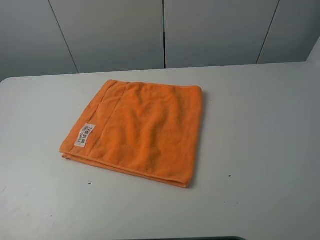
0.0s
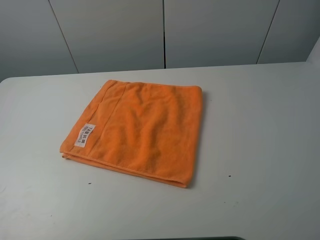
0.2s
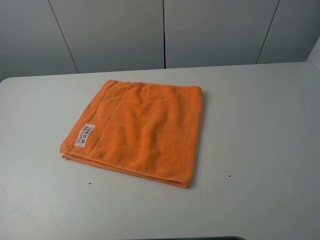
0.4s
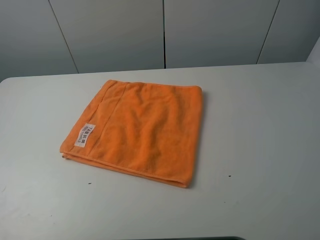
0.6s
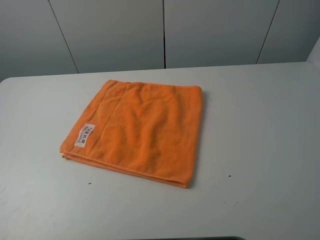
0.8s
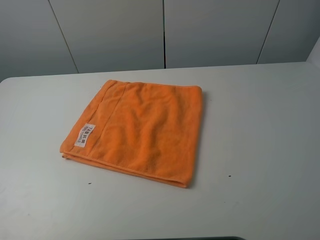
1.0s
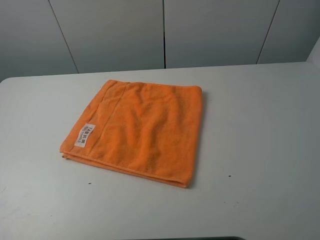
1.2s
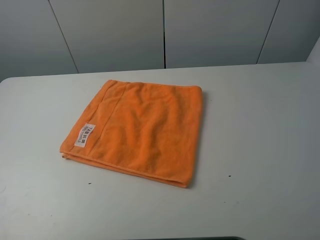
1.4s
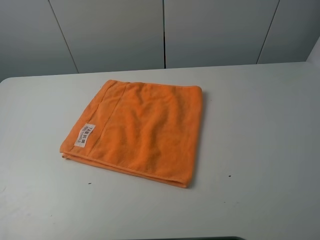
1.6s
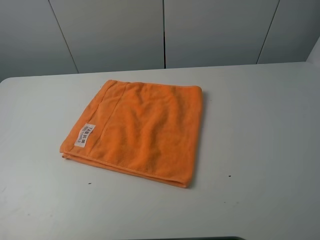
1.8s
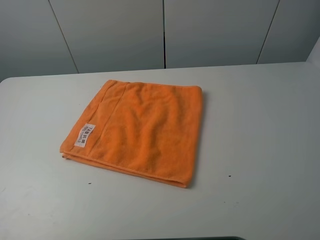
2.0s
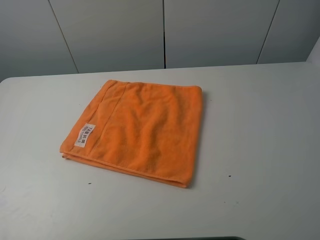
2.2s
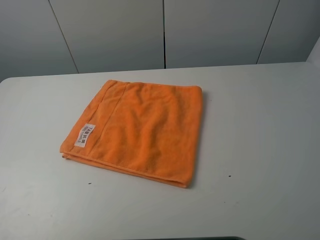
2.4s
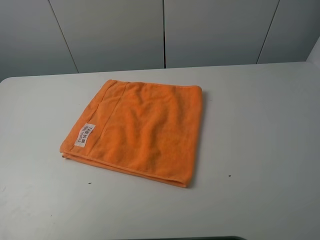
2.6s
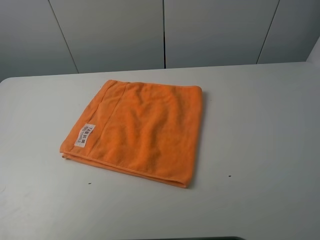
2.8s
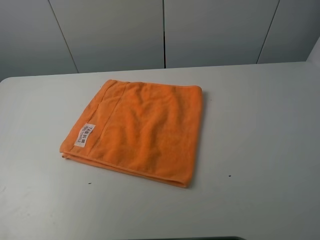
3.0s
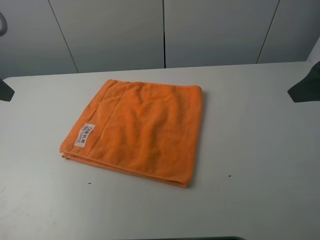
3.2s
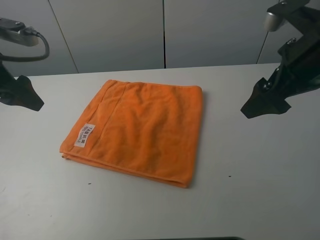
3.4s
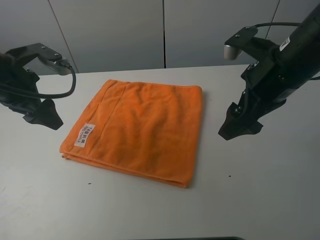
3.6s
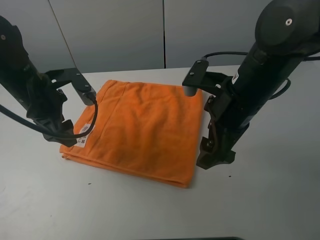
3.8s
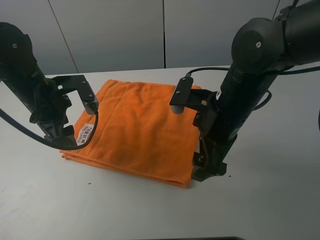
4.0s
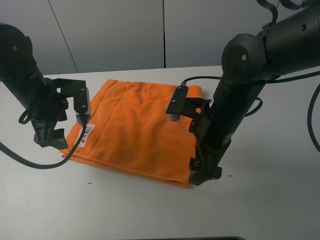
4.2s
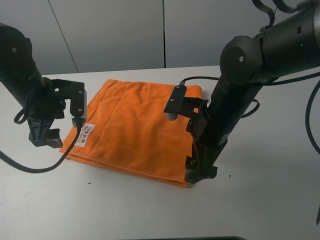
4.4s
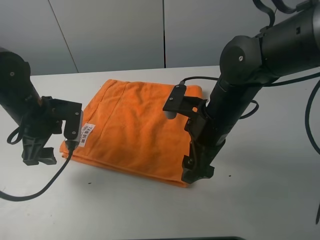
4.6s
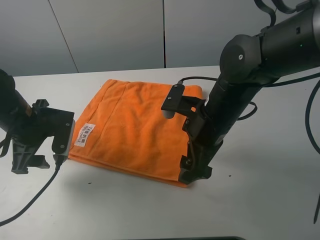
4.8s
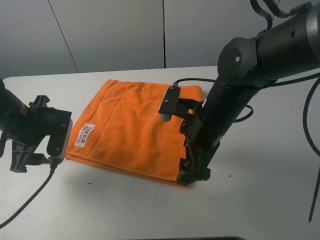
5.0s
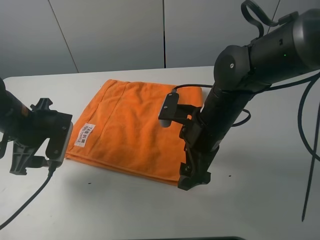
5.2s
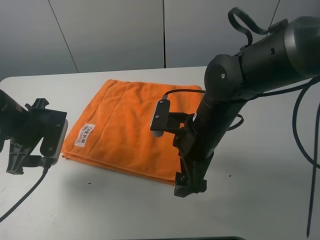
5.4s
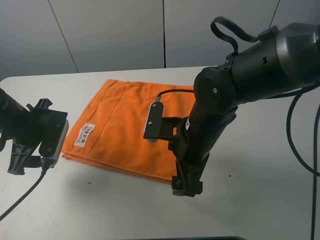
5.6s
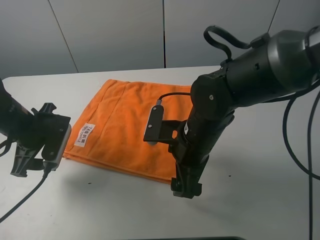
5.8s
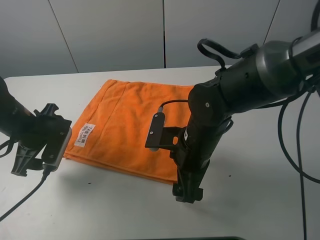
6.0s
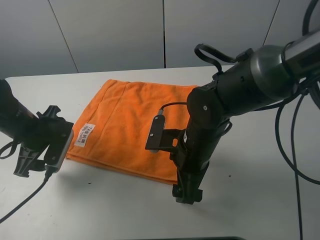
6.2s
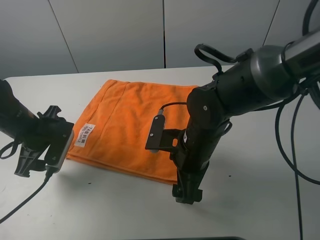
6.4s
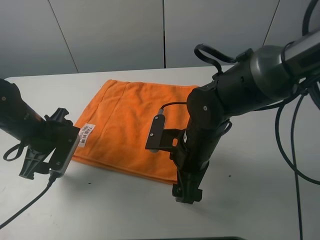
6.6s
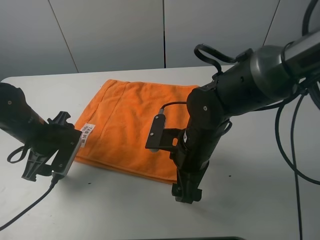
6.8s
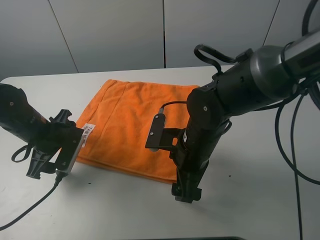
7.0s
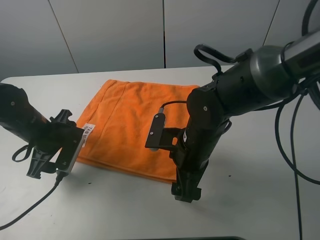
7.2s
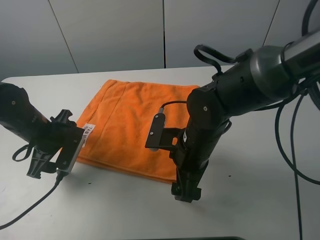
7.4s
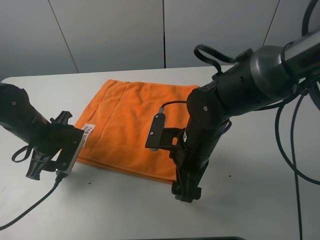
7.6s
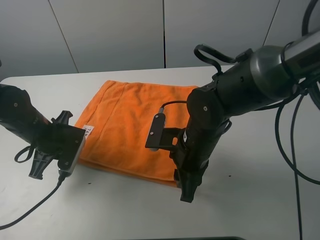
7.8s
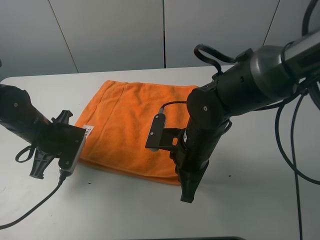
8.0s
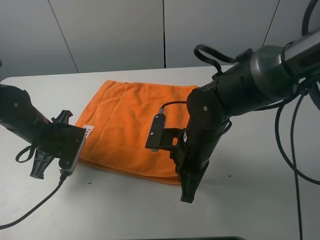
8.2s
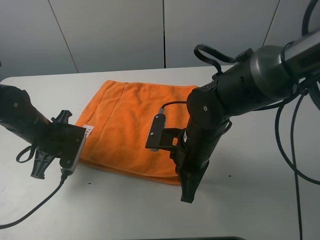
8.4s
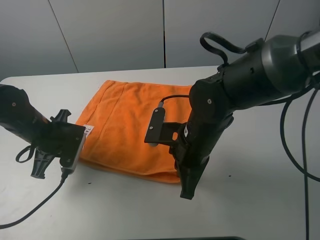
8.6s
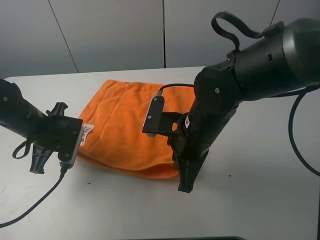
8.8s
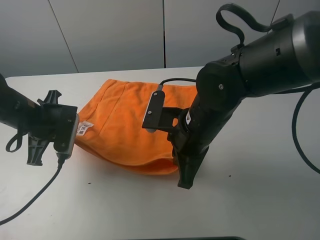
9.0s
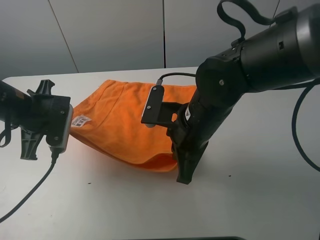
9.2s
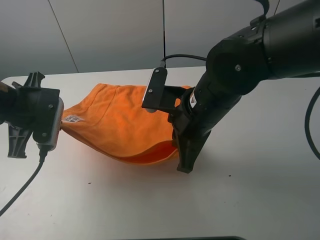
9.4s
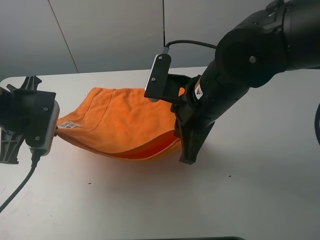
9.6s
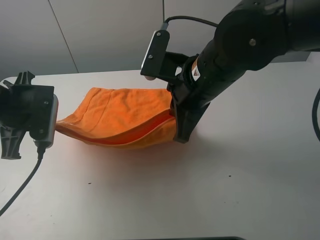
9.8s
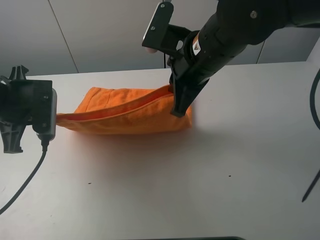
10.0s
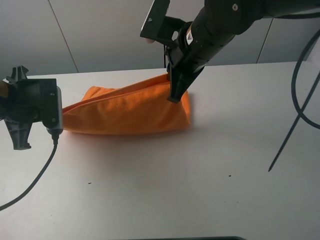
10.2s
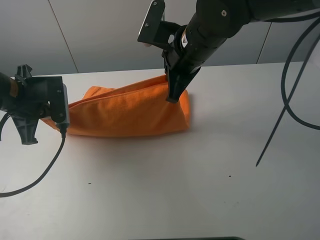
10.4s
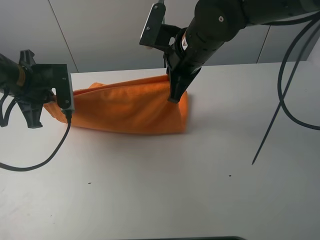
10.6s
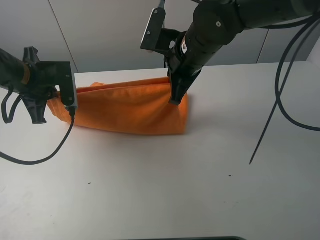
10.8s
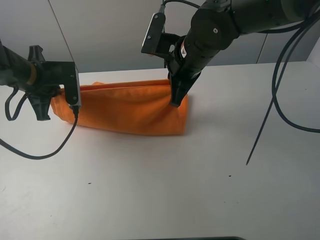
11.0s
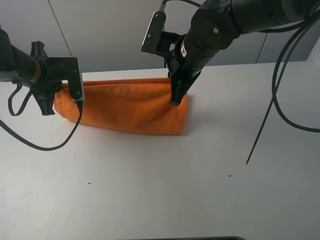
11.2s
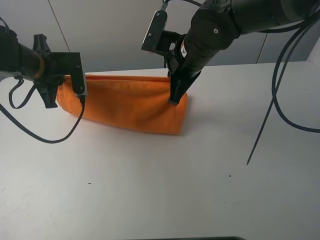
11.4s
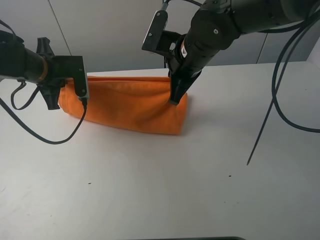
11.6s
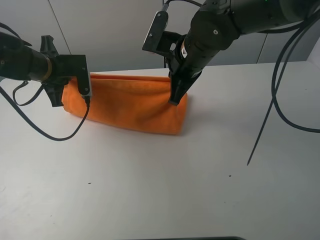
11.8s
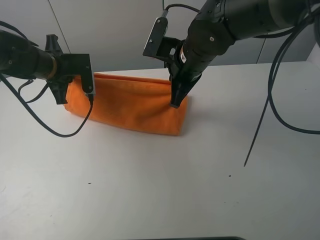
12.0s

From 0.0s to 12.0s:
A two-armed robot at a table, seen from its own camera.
Task of the whole recording: fold the towels on the table.
Step, from 0.0s to 8.0s: Grasp the orange towel with the left gripper.
From 0.0s to 1.6s: Neither gripper changes place.
From 3.0s to 4.4s: The right gripper travels to the left, downward and forward by roughly 25 cm. The left gripper moves downward, forward and to the right, about 20 cm.
From 4.4s to 6.0s: The left gripper changes place by roughly 5 cm; the right gripper shifts by some 5 cm.
From 6.0s to 7.6s: There are only small adjustments of the grippers.
From 7.6s to 9.0s: The left gripper shifts some 5 cm upward, and closes. Meanwhile the right gripper closes its fingers.
From 9.0s to 10.4s: The right gripper is displaced forward and upward by about 15 cm.
From 10.4s to 12.0s: The left gripper heads forward, covering about 10 cm.

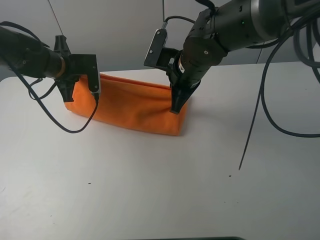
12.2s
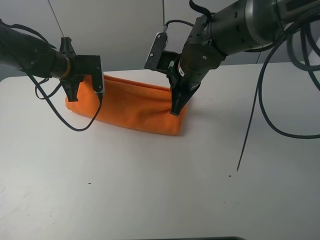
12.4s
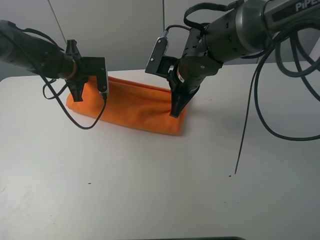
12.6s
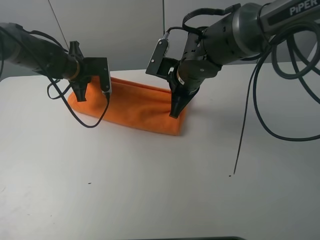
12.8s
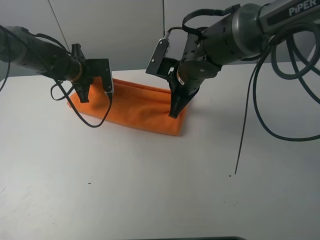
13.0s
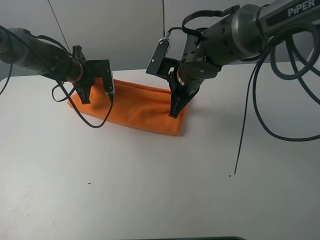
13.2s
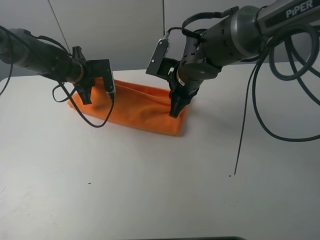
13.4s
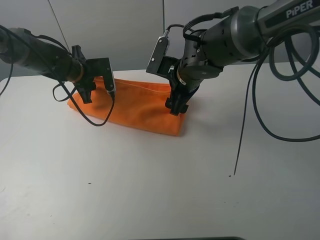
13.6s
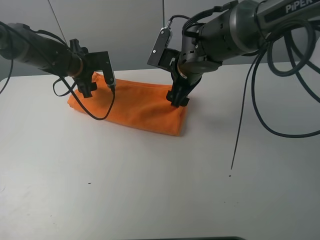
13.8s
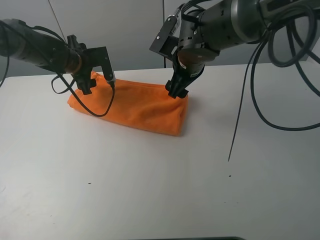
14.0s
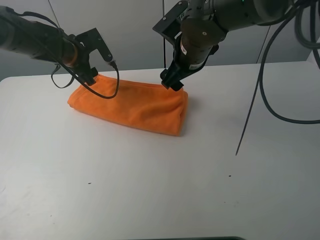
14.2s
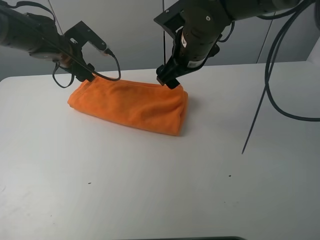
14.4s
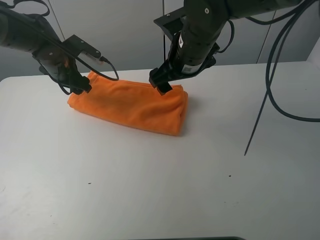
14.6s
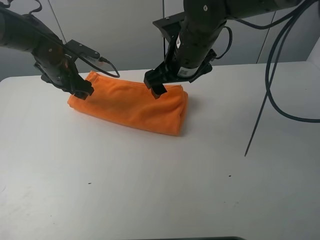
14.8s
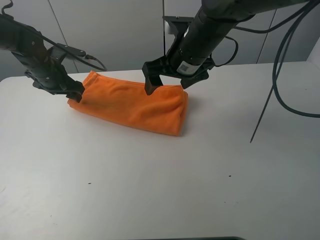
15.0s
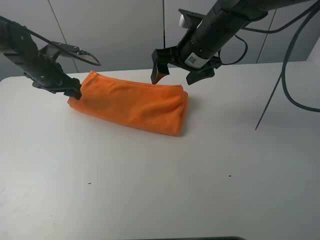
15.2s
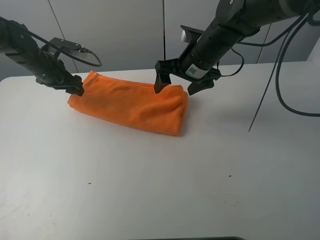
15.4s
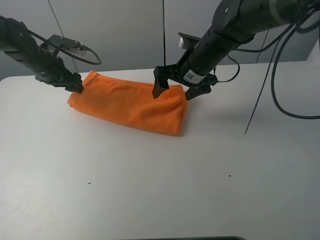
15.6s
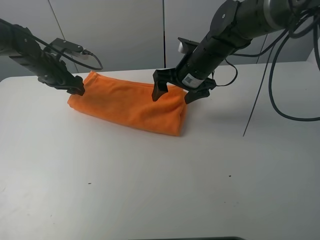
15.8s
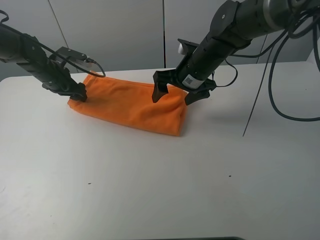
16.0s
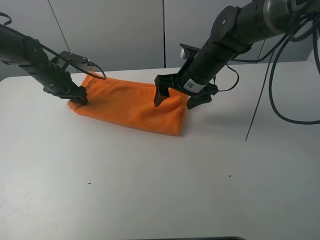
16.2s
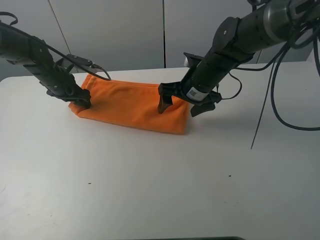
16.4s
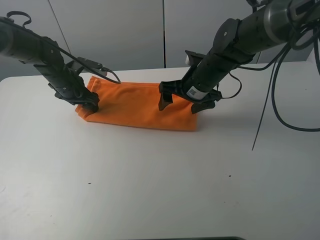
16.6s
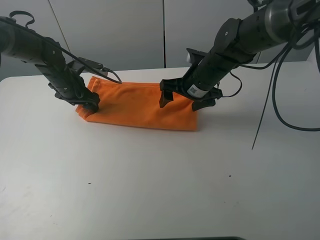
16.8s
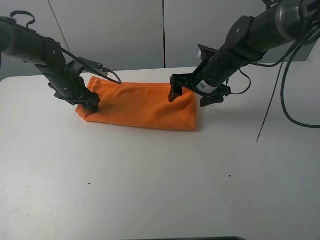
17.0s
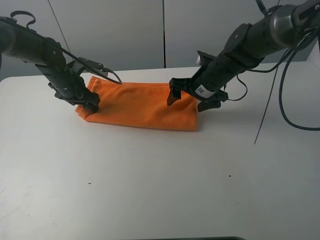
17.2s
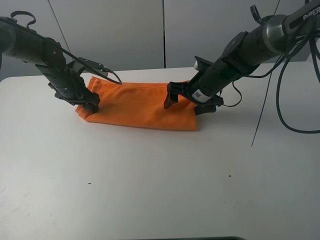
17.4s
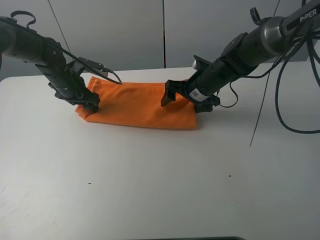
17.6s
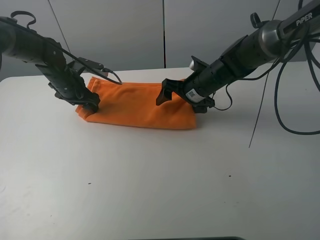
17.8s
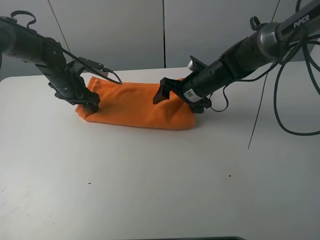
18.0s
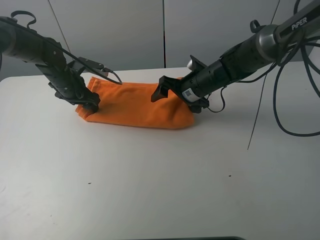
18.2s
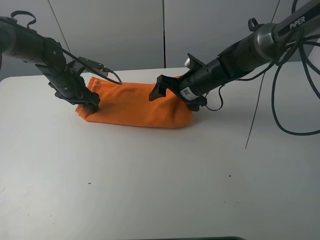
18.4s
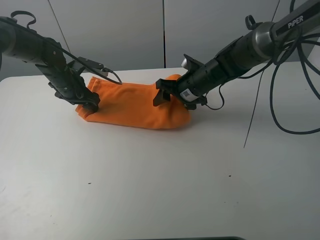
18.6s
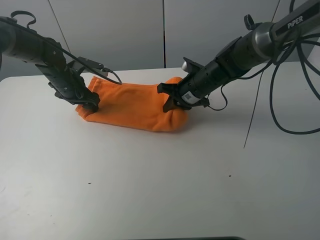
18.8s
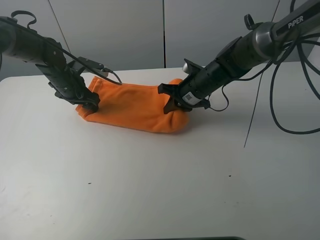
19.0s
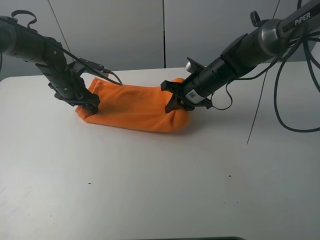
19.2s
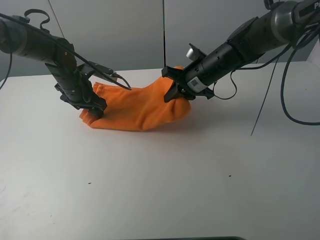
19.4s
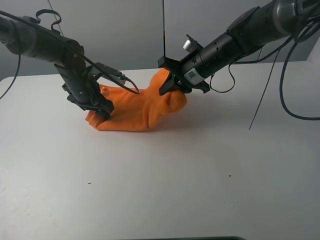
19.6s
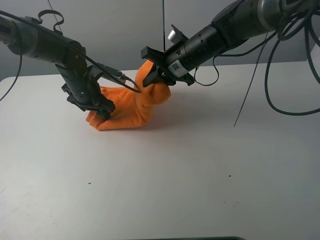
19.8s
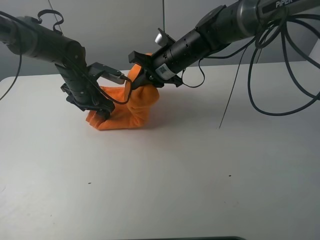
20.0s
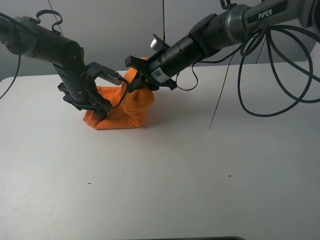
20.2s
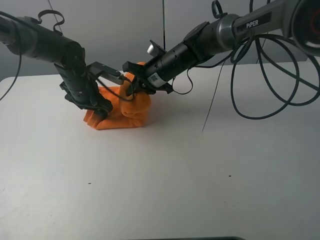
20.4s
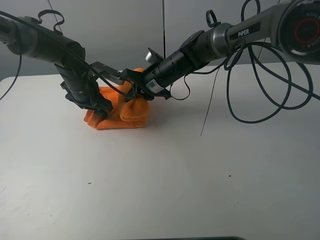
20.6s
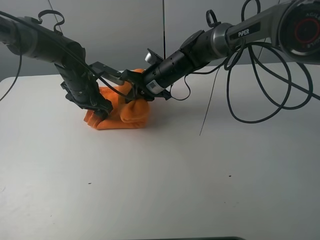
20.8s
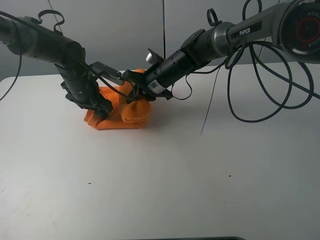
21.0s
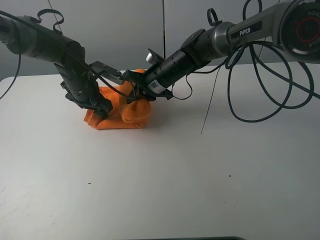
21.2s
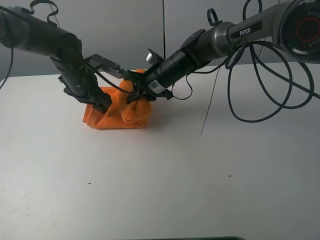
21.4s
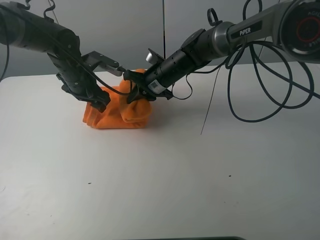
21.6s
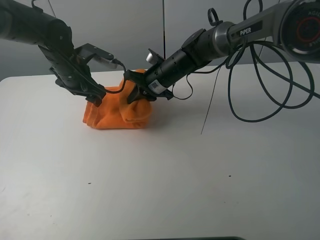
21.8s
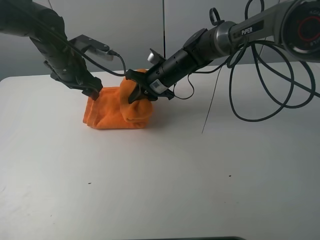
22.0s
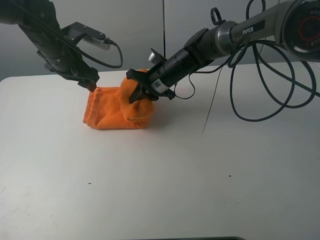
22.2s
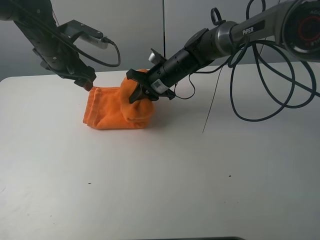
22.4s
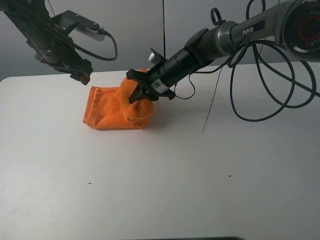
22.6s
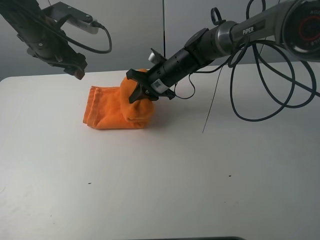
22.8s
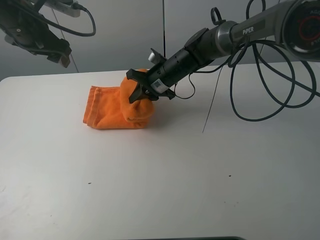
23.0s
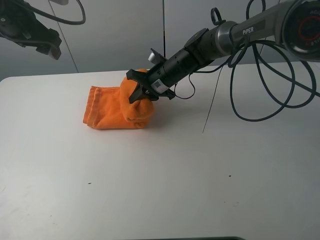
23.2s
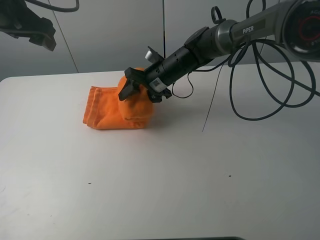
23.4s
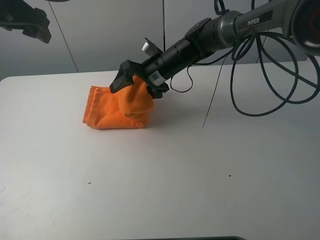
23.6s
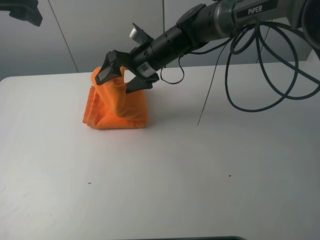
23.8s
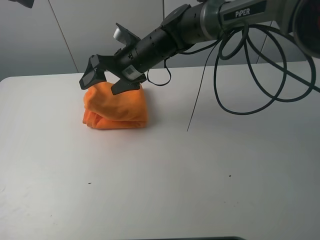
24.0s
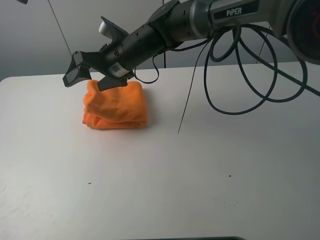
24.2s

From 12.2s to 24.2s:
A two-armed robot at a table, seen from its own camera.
Task of the whole recording: fold the towels on the table.
Step, from 12.2s to 15.2s: Fold the orange towel upwards with the right gripper.
Step, from 15.4s to 16.4s: Press on the orange towel with the left gripper.
From 12.2s to 13.8s: The right gripper opens, while the left gripper moves about 5 cm, and opens up.
From 13.8s to 15.2s: The right gripper is displaced upward by some 5 cm, while the left gripper heads to the left, covering some 5 cm.
From 15.2s to 16.6s: The left gripper changes place by some 5 cm; the right gripper shifts about 10 cm downward.
From 16.6s to 18.2s: The grippers make only small movements.
From 18.2s to 19.8s: The right gripper heads upward, covering about 5 cm, and closes; the left gripper moves to the right, approximately 5 cm.
From 19.8s to 21.2s: The right gripper travels downward by about 5 cm.
From 21.2s to 22.6s: The left gripper heads upward, covering approximately 10 cm.
From 22.6s to 24.2s: The left gripper heads upward, covering some 15 cm; the right gripper is displaced to the left and upward by some 10 cm, and opens its fingers.
